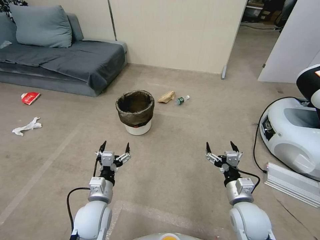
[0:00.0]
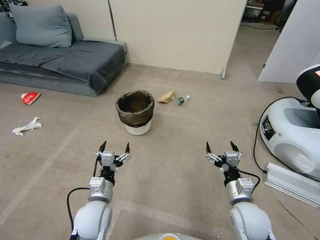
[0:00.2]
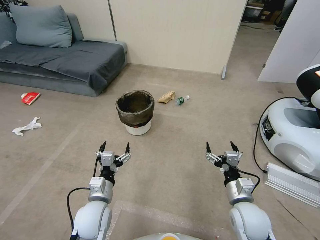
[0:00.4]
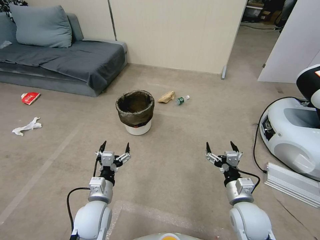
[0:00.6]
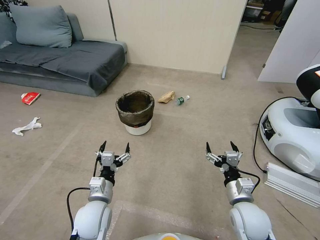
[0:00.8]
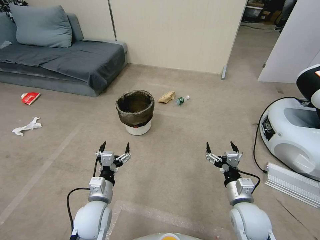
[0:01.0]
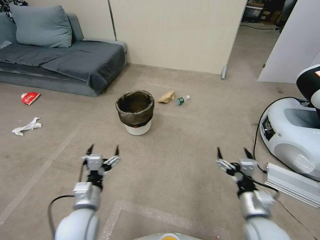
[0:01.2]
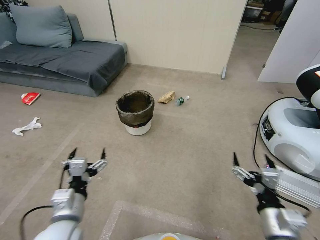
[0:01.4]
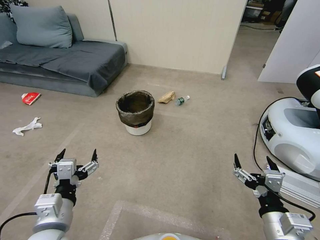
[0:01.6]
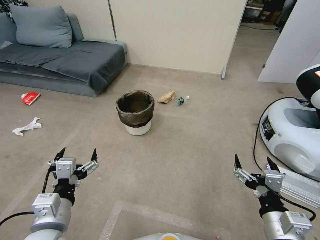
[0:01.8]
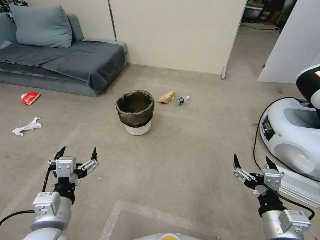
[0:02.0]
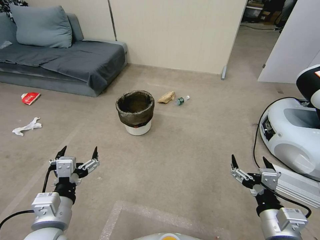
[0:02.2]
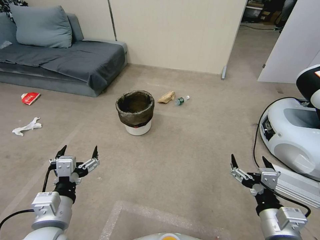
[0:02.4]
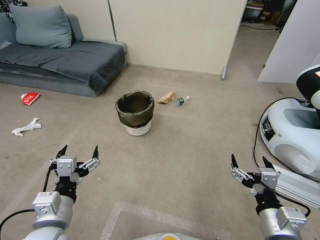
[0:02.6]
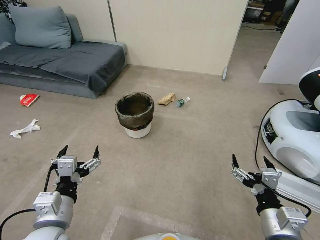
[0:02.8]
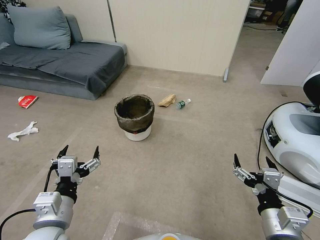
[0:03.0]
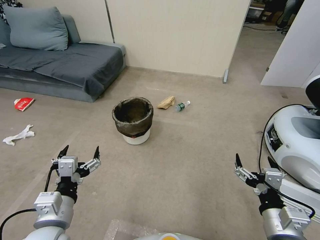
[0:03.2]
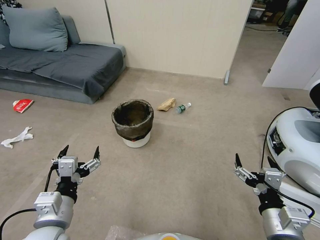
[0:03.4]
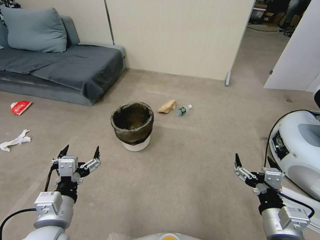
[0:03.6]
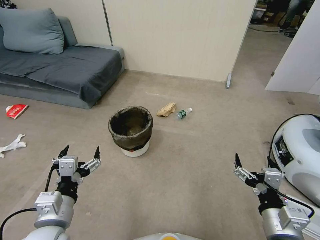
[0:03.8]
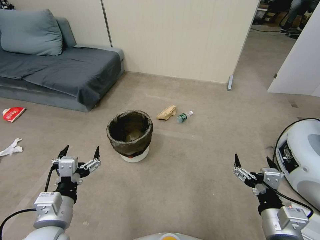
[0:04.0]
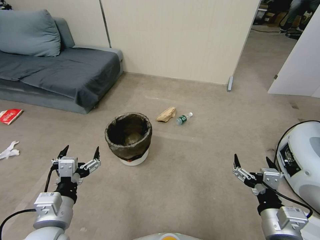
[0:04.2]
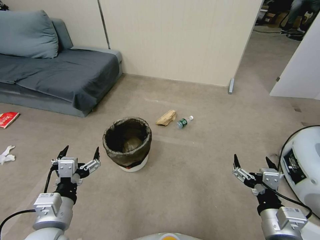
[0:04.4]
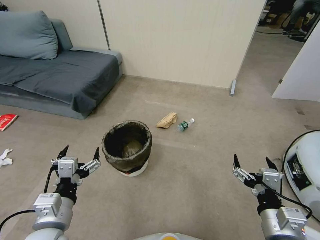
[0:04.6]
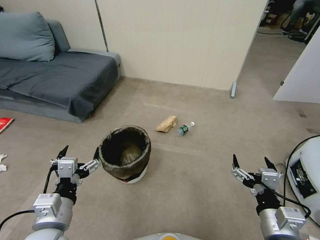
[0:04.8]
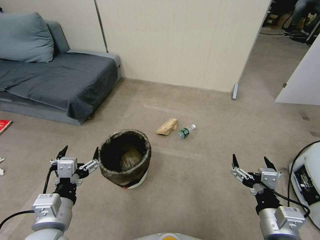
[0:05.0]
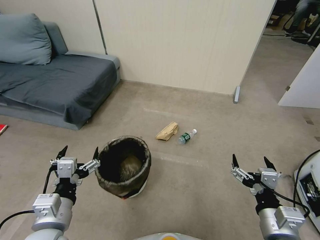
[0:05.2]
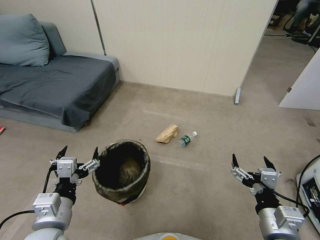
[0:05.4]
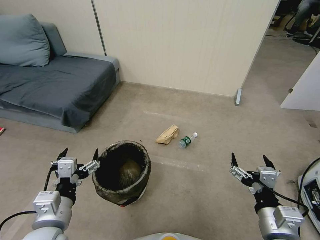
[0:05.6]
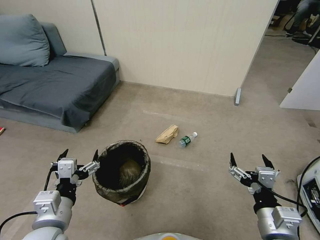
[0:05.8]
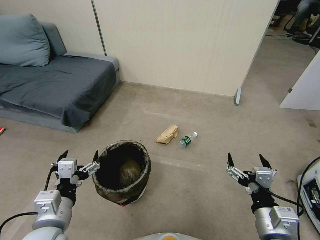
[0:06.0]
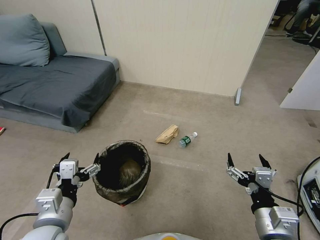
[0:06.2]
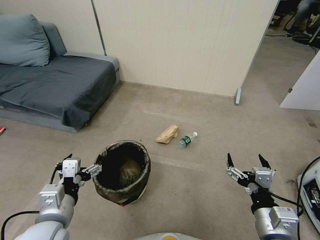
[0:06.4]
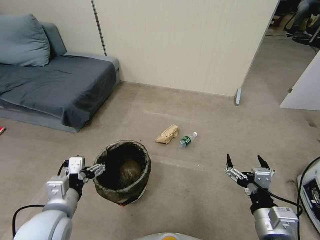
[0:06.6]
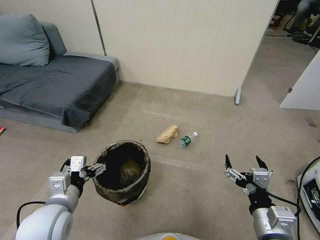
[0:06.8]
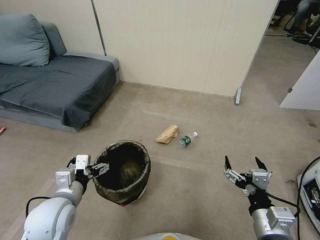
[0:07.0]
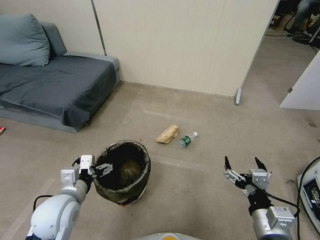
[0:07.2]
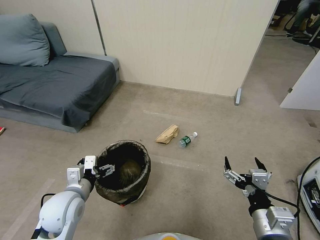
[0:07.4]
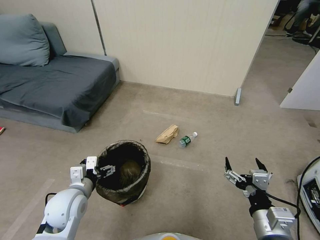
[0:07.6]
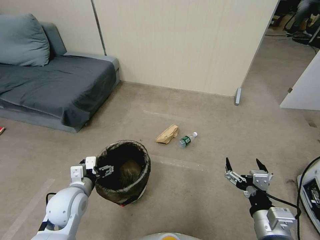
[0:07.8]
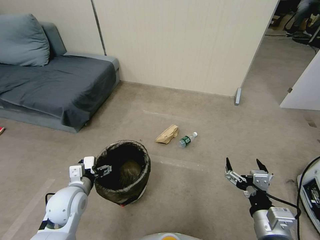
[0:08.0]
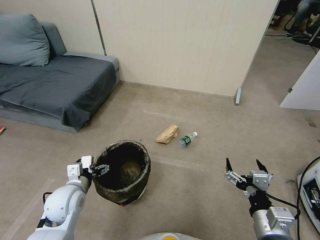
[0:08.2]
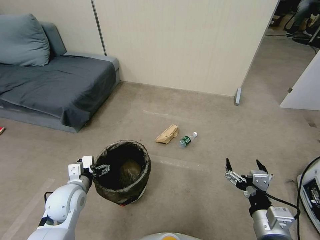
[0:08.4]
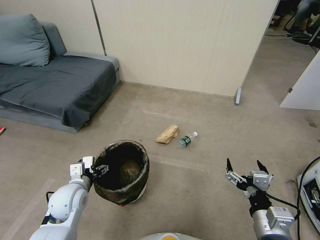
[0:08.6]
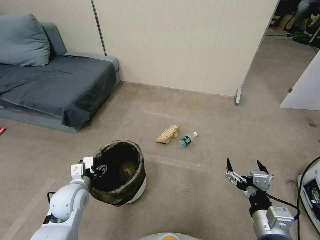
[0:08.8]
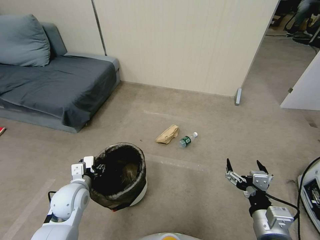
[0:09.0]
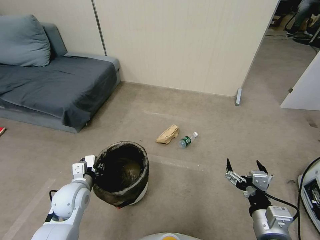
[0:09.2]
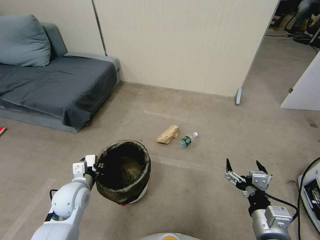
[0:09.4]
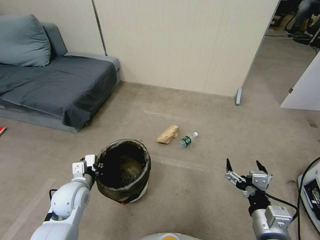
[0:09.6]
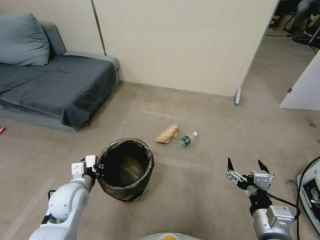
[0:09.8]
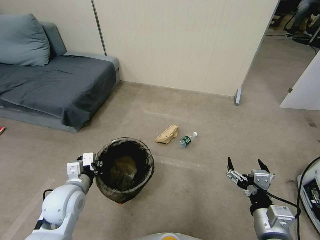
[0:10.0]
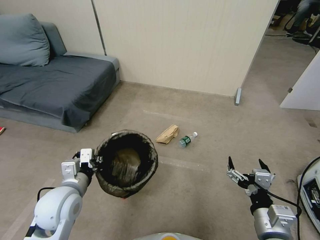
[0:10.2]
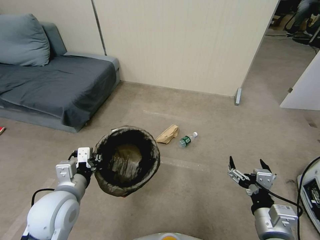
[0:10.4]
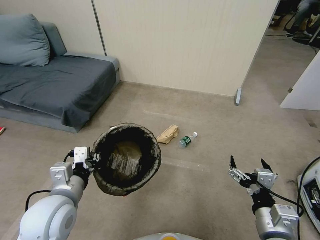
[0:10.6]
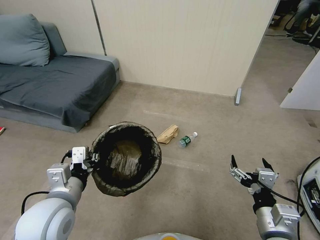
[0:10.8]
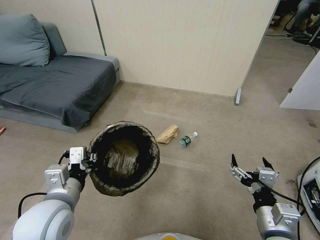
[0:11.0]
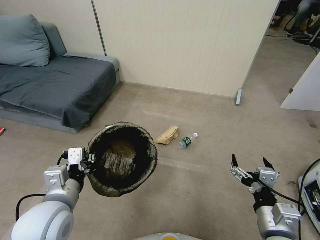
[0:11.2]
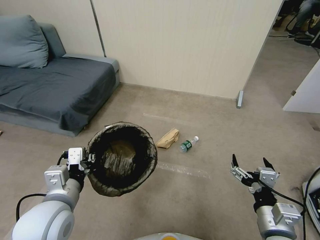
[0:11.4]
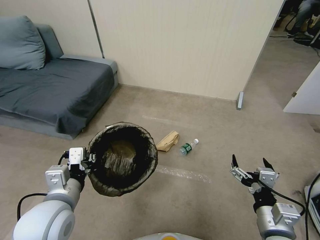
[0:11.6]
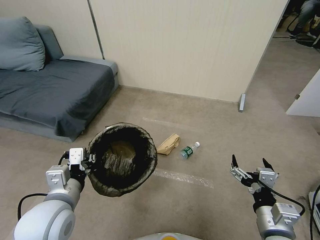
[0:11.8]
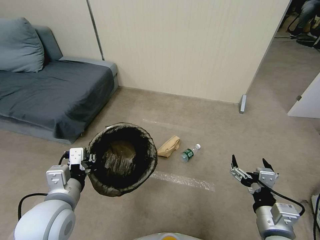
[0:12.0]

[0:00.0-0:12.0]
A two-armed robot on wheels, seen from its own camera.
Task of the whole recording: Pick up the trash bin, then pick up the garbage from the floor and place it into the trash bin.
0:01.6 to 0:03.0: Both grippers stay about where they are.
0:06.0 to 0:07.6: The left gripper travels forward and downward by approximately 10 cm.
0:07.6 to 0:09.0: The left gripper closes up.
0:09.0 to 0:10.4: The left gripper travels upward and backward by some 10 cm, and closes its fingers.

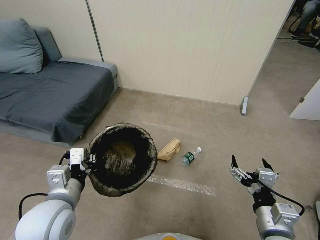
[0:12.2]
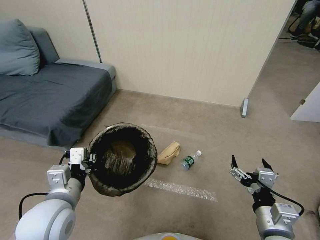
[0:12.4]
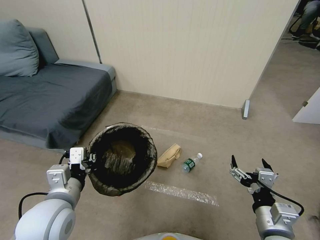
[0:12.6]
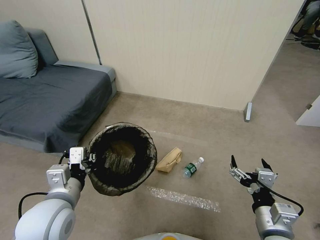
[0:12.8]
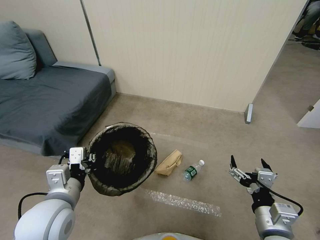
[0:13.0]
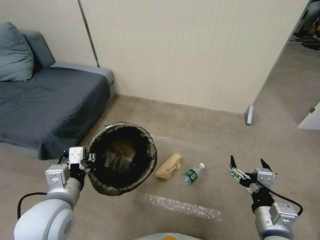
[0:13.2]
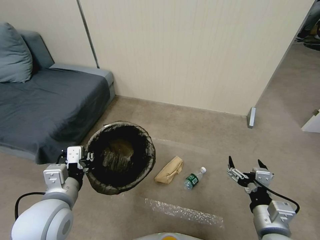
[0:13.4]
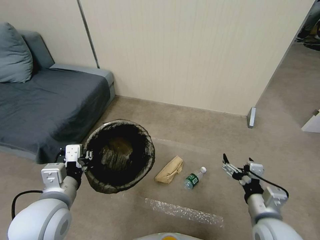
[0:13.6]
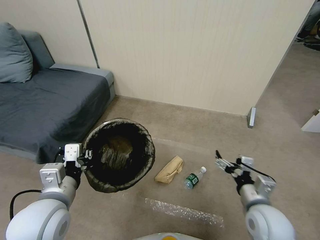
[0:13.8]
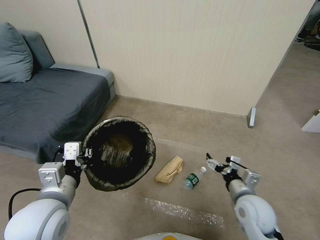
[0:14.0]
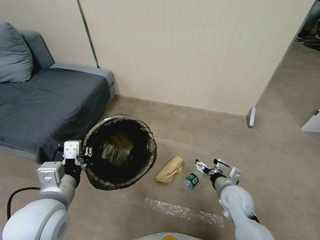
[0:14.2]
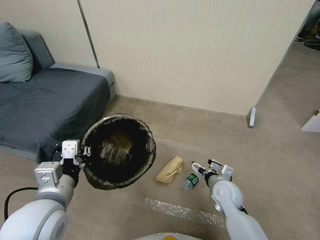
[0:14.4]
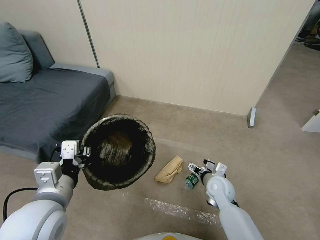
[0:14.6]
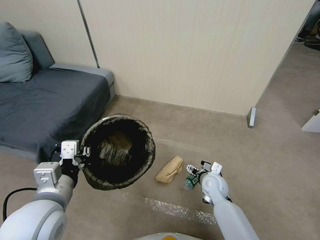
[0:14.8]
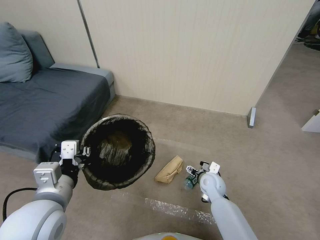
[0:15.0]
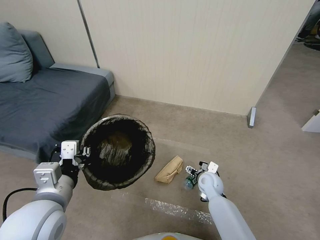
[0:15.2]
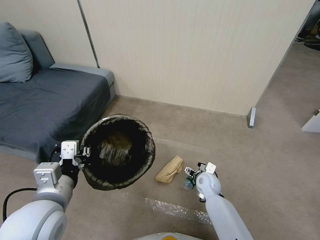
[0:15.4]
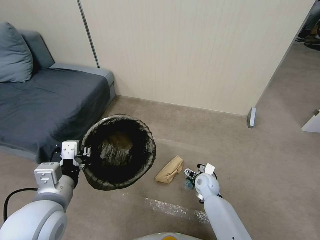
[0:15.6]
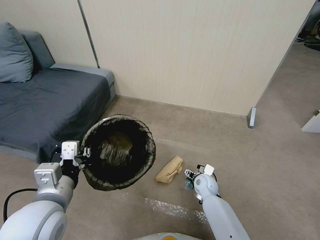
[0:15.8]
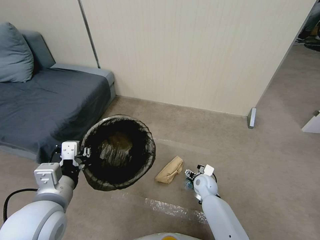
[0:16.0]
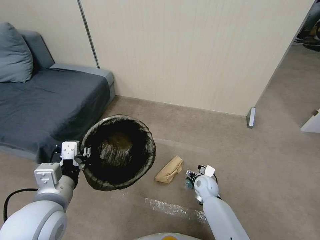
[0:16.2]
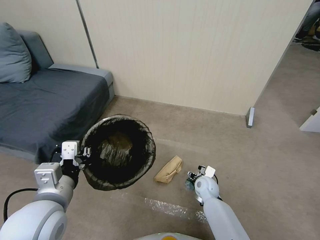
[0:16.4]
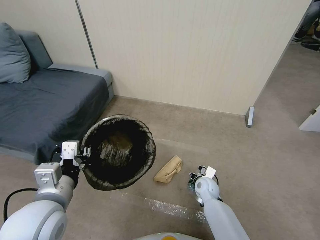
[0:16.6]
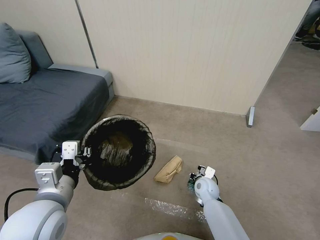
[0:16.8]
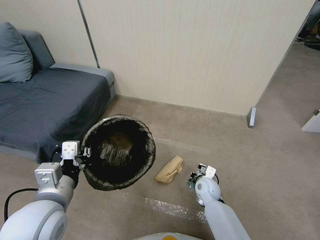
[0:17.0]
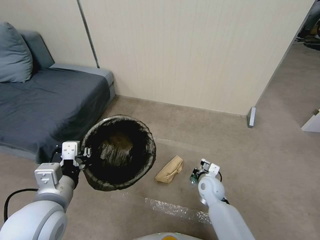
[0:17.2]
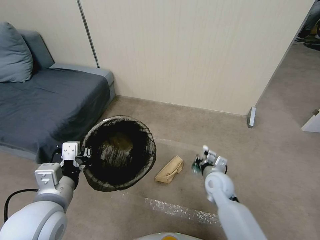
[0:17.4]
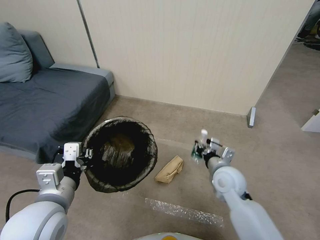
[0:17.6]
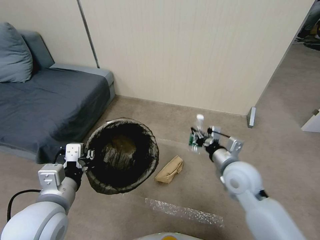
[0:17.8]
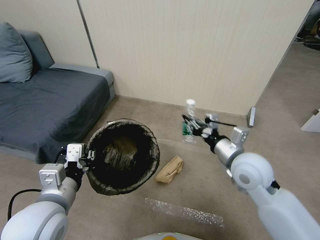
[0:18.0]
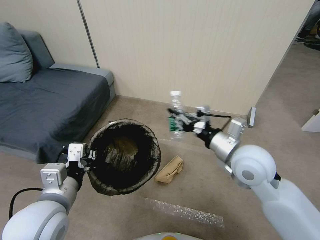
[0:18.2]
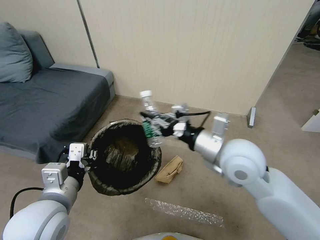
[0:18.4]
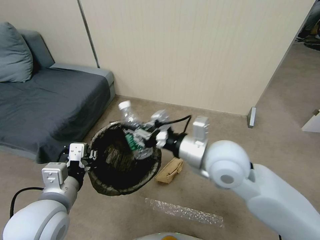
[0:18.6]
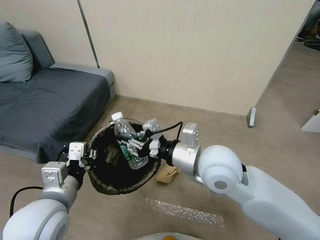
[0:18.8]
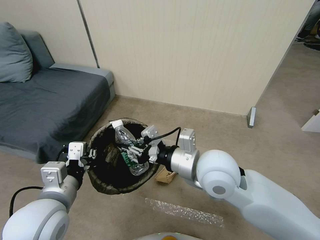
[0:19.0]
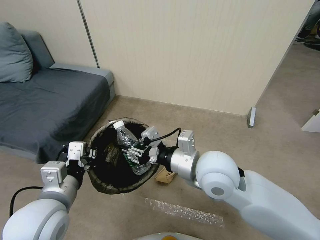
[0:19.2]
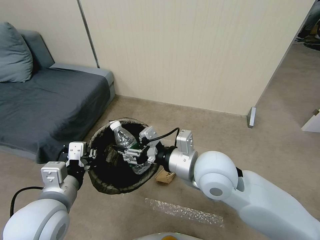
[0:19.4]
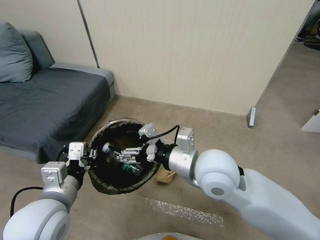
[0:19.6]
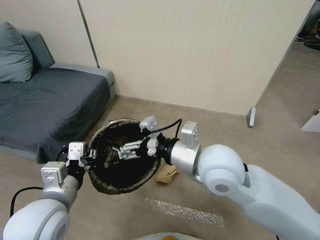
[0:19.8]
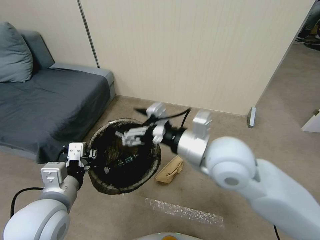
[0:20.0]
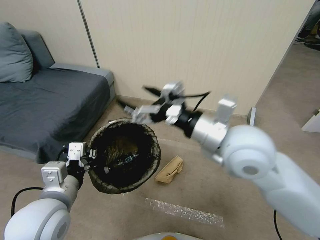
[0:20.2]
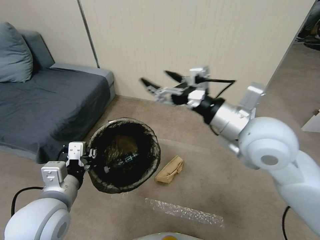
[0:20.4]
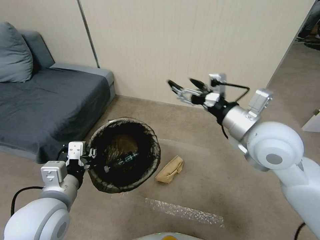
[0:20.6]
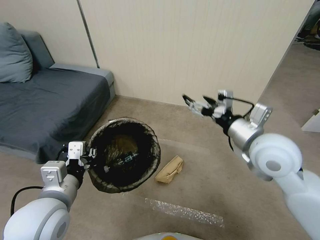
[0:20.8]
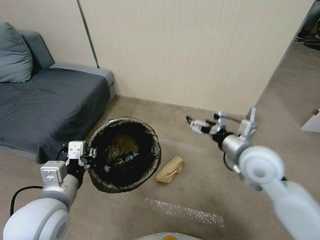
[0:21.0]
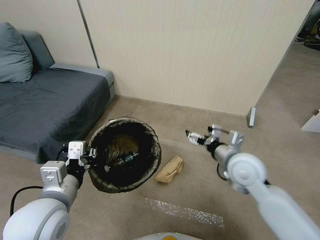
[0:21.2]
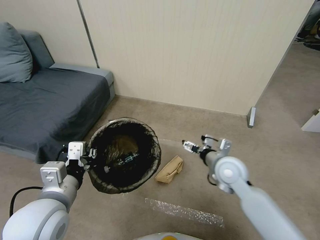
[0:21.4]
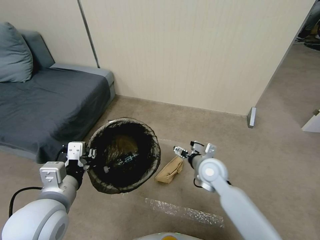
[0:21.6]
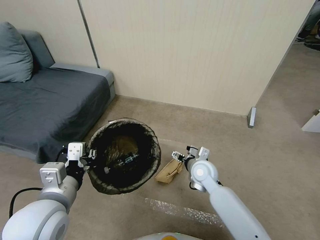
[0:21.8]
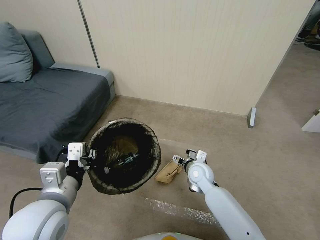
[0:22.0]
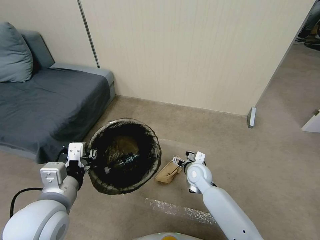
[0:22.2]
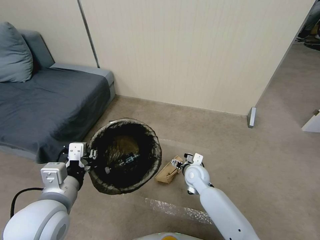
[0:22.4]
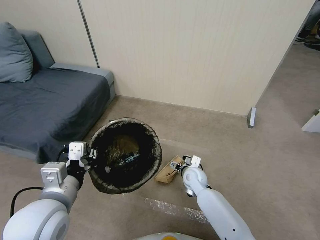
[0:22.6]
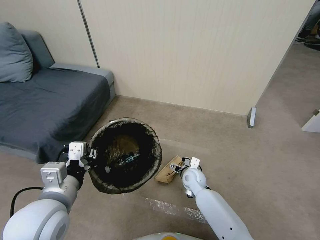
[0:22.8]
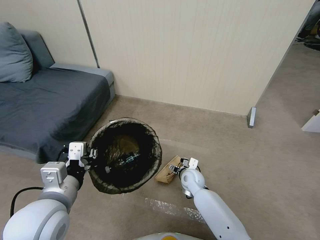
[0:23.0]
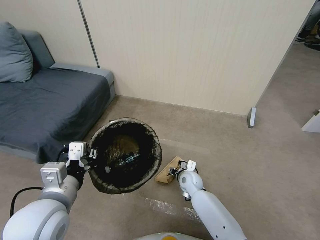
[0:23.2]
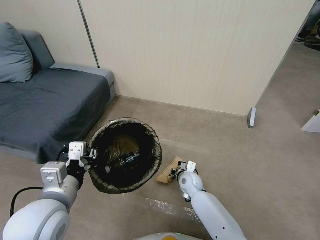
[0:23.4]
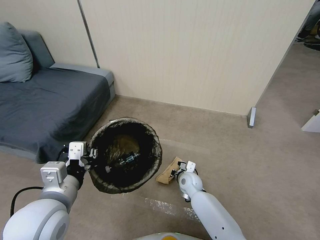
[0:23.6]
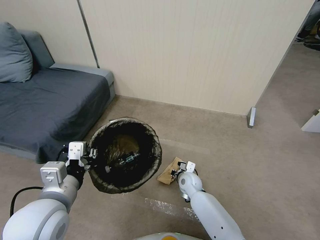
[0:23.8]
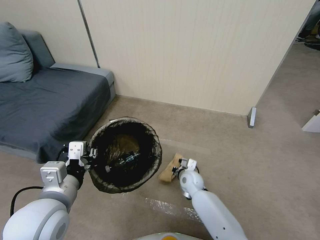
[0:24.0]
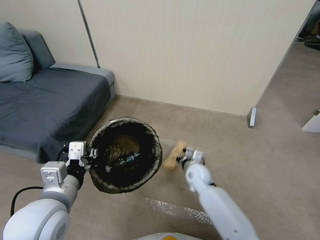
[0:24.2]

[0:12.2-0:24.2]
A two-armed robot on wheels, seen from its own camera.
Task of the whole recording: Pick up the trash bin, then pick up the garbage from the floor and place it into the trash bin.
0:12.2 to 0:13.8: The right gripper is displaced forward by about 5 cm.
0:13.8 to 0:15.2: The right gripper shifts some 25 cm forward, downward and to the left.
0:15.2 to 0:16.6: The right gripper closes up.
0:16.6 to 0:18.2: The right gripper is displaced upward by approximately 35 cm, and closes up.
0:18.2 to 0:19.8: The right gripper goes about 10 cm to the left, and opens.
0:19.8 to 0:21.2: The right gripper goes some 15 cm to the right and downward.
0:21.2 to 0:22.6: The right gripper goes some 25 cm downward and to the left.
0:22.6 to 0:24.2: The right gripper closes its fingers.
